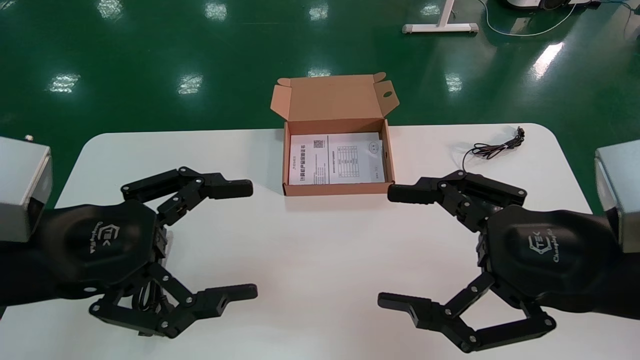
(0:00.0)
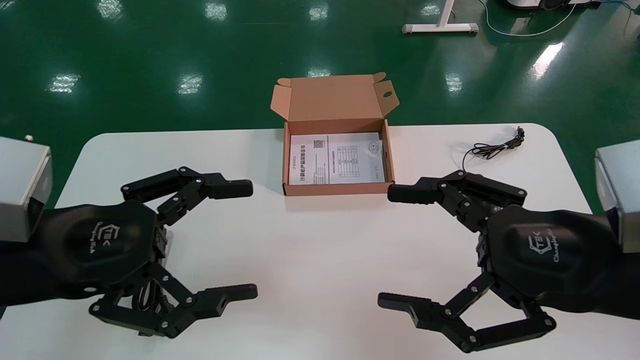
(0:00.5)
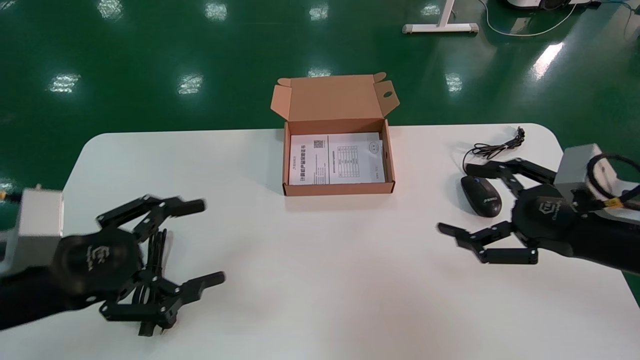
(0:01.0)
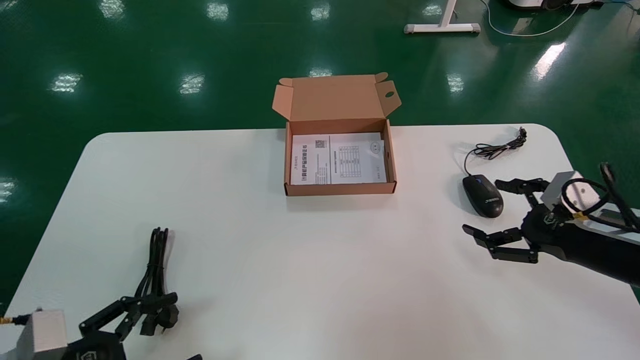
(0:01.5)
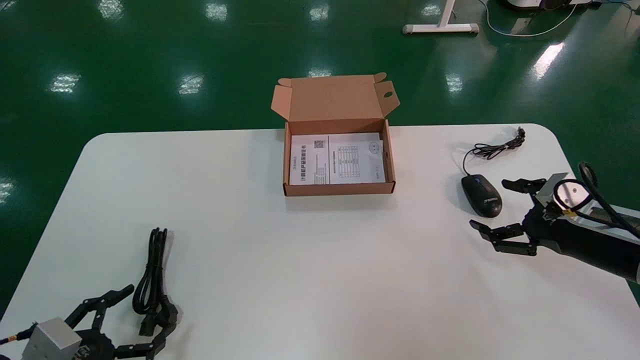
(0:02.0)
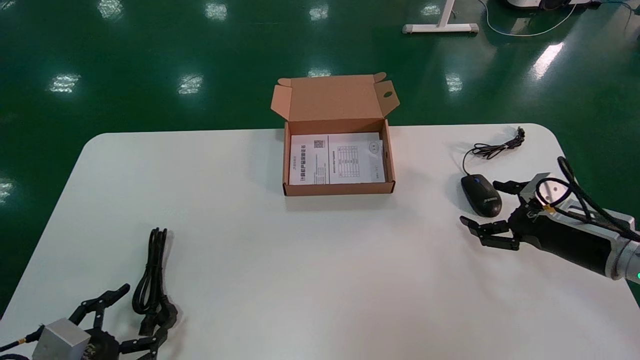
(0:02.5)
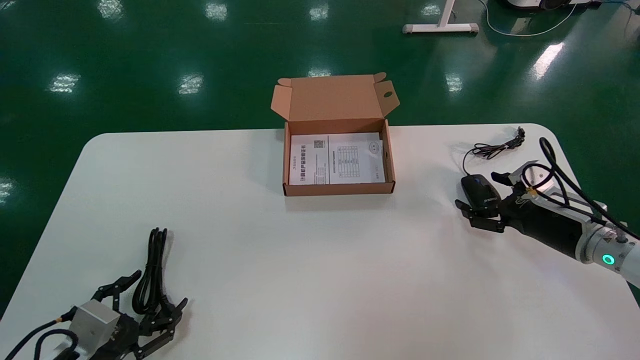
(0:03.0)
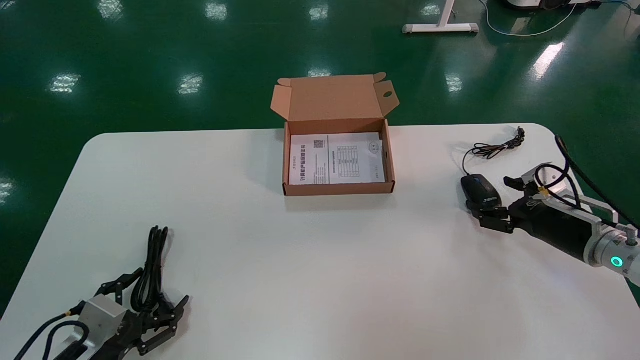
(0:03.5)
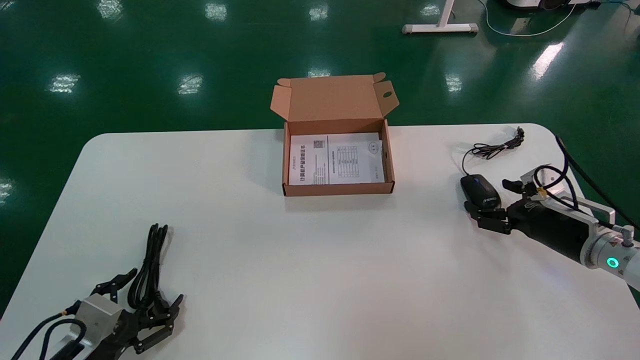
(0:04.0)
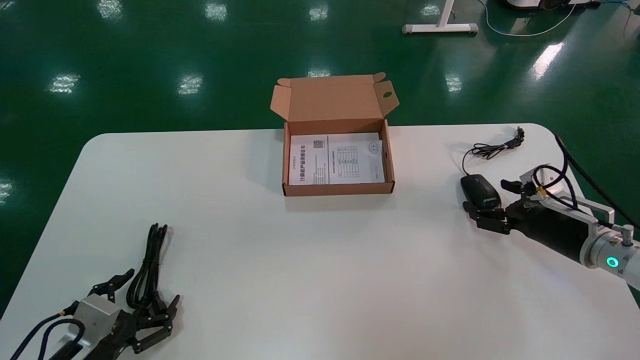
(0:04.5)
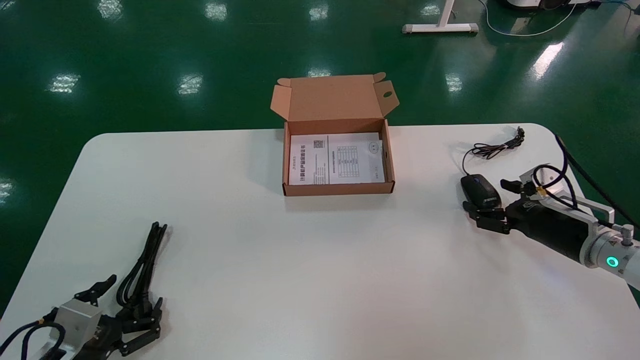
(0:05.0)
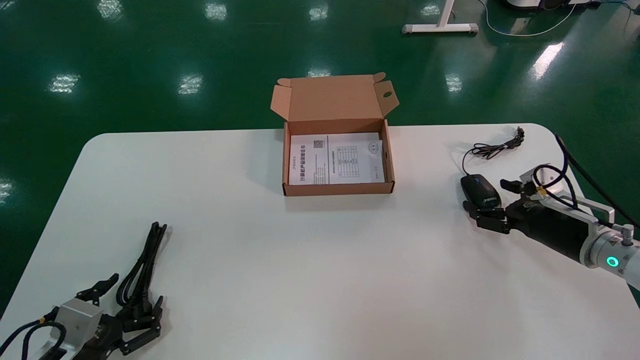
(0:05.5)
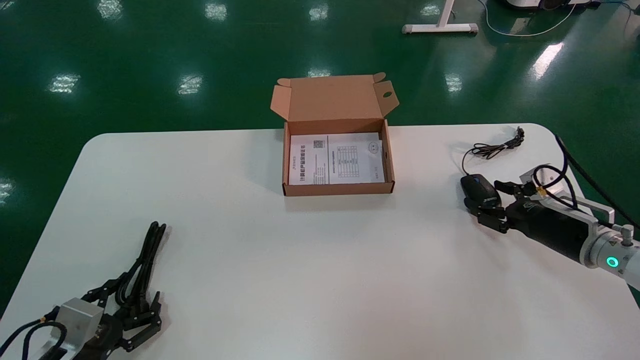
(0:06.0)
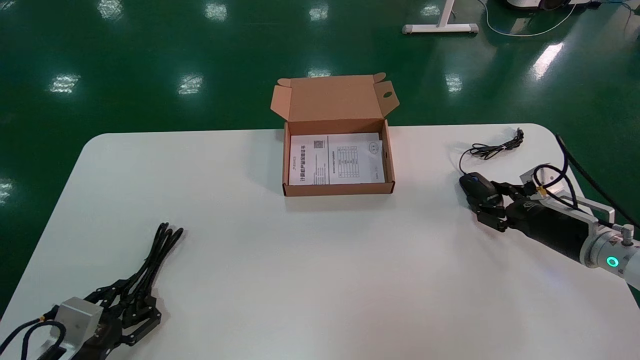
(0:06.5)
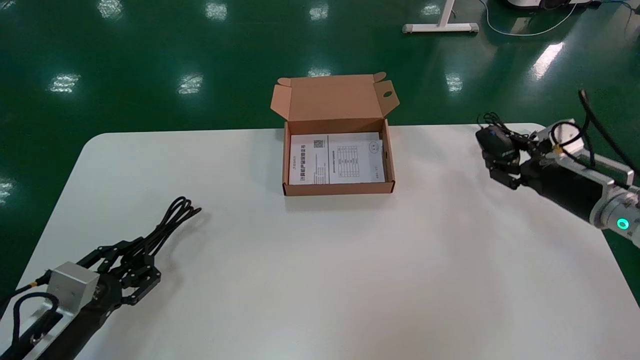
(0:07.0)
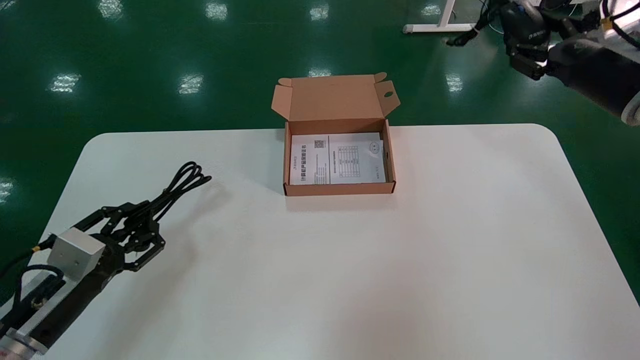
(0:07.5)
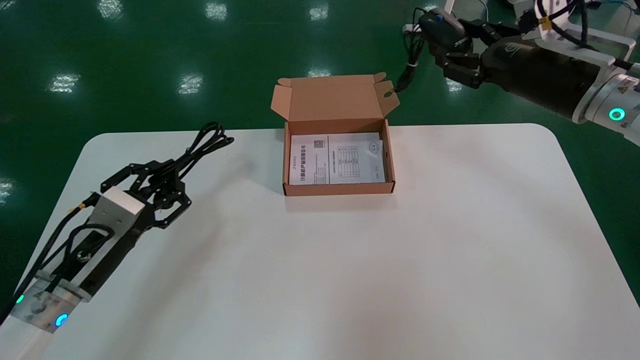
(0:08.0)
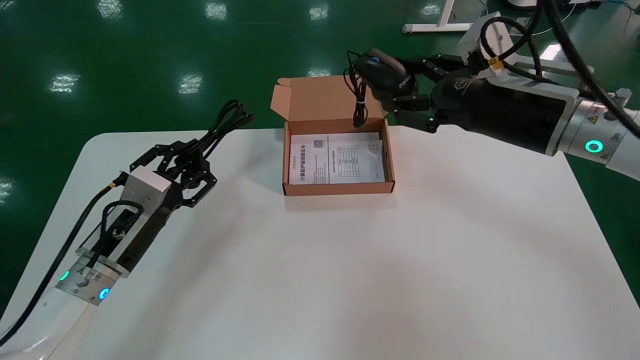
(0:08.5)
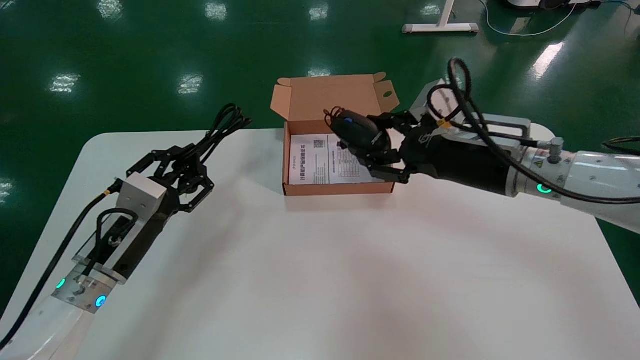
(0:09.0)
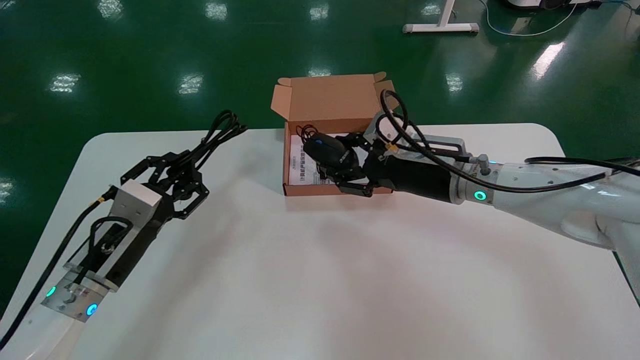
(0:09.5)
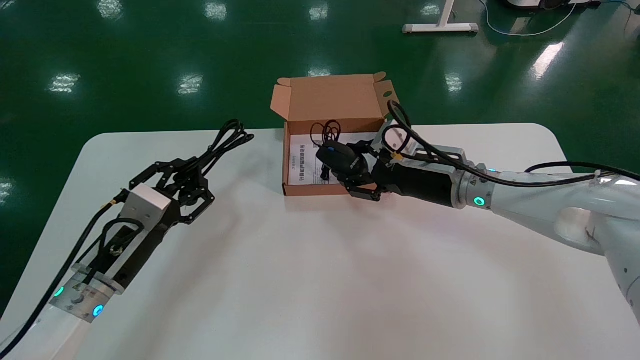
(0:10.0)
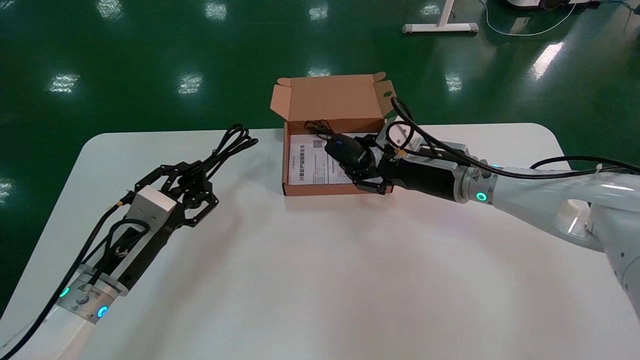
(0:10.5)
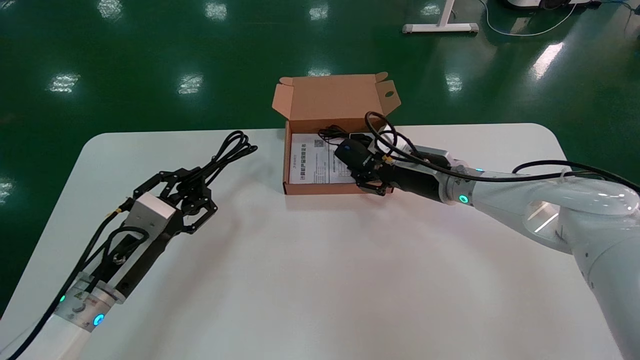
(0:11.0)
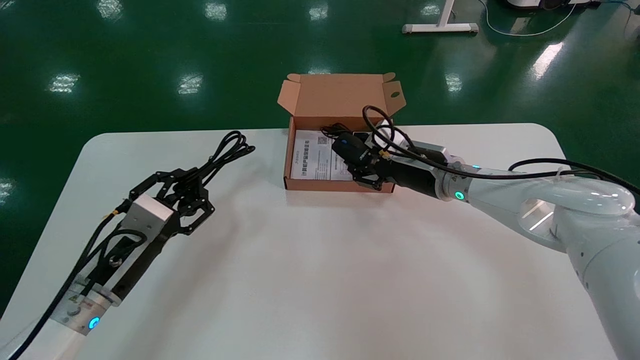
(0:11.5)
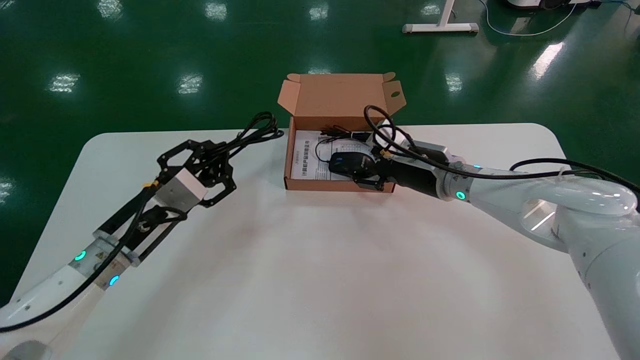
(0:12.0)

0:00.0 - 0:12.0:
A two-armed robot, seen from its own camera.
Step, 0:01.0 - 0:06.5: Grab and pick up the mouse and power cord from the accessory packaging area.
0:00.0 - 0:02.0: The right gripper heads forward, to the right and downward, covering approximately 25 cm. The left gripper goes approximately 25 cm downward and to the left.
0:02.0 - 0:04.0: Both grippers travel together forward, some 5 cm.
0:06.0 - 0:08.0: The left gripper heads upward and forward, covering some 15 cm, and closes, while the right gripper moves upward and to the left, roughly 25 cm, and closes.
0:08.0 - 0:10.0: The right gripper moves downward and to the left, some 15 cm.
0:10.0 - 0:12.0: There are only small adjustments of the grippers.

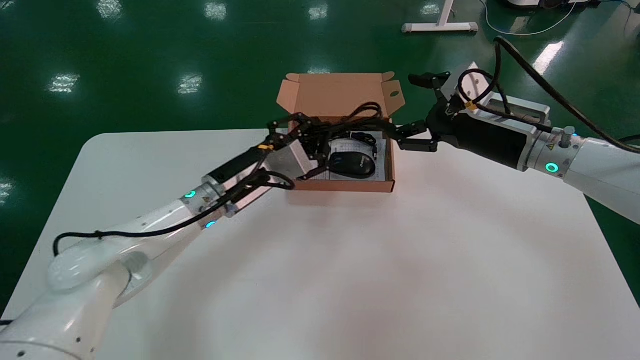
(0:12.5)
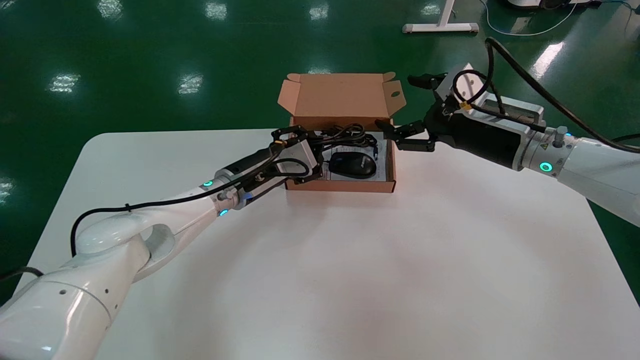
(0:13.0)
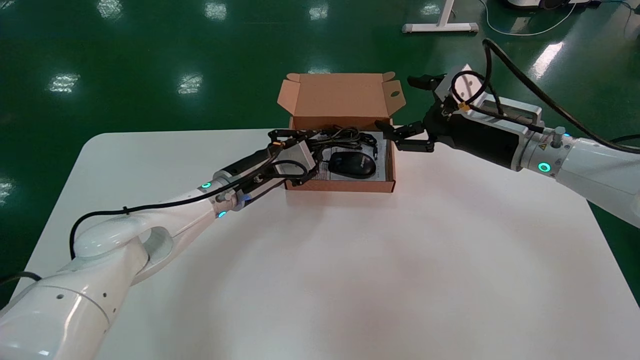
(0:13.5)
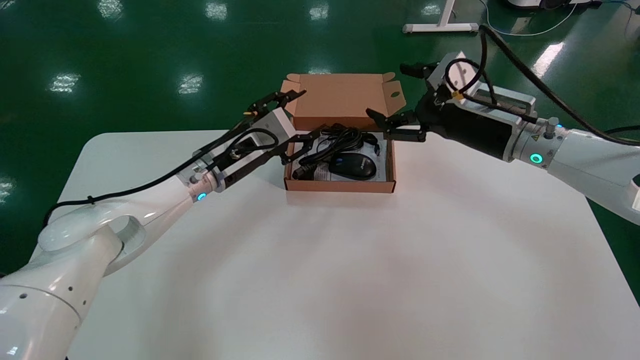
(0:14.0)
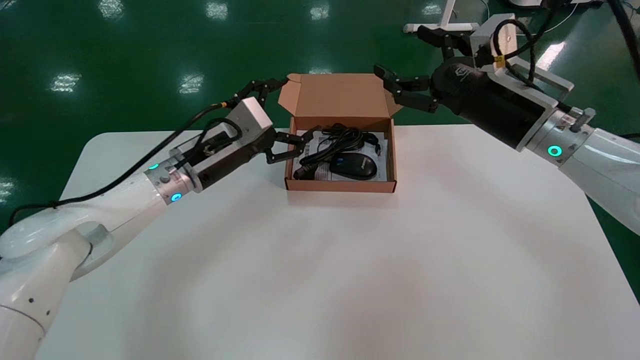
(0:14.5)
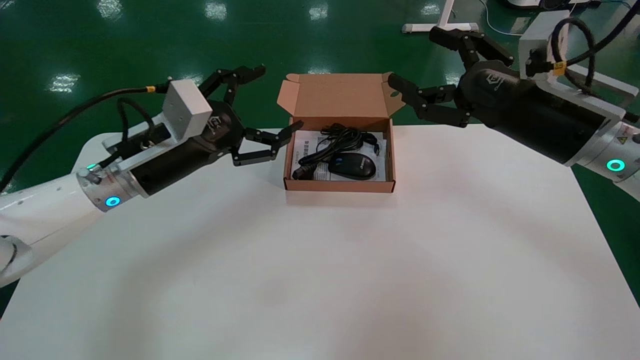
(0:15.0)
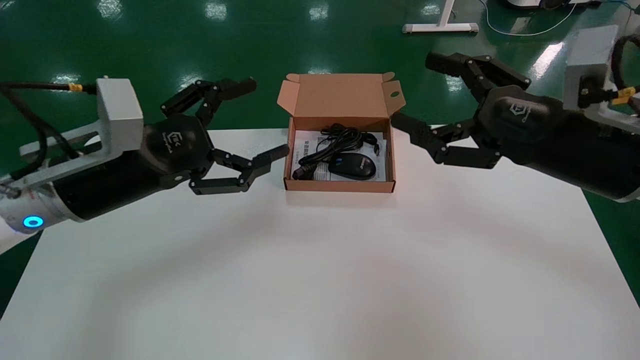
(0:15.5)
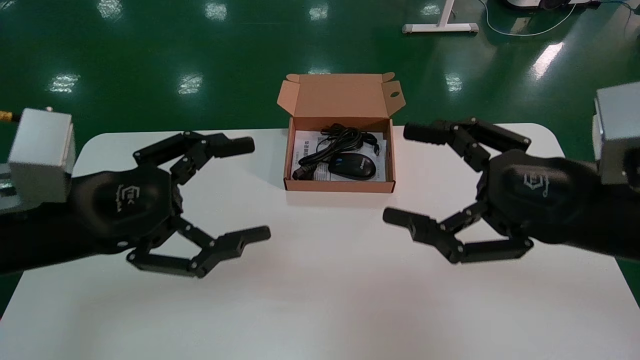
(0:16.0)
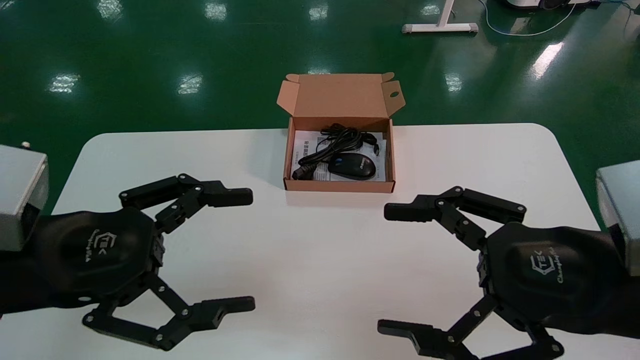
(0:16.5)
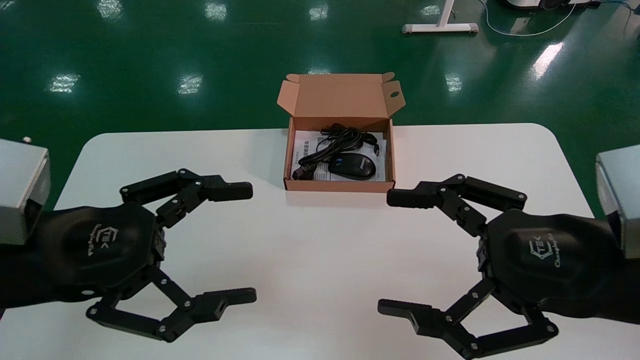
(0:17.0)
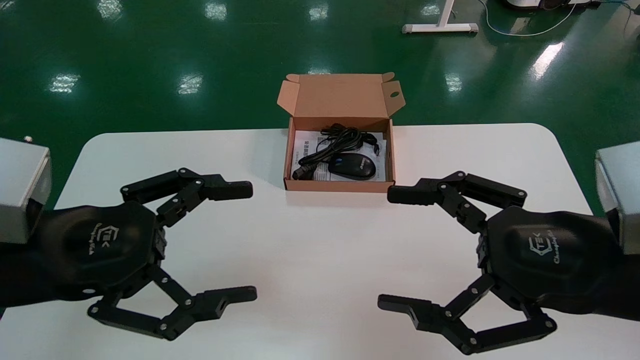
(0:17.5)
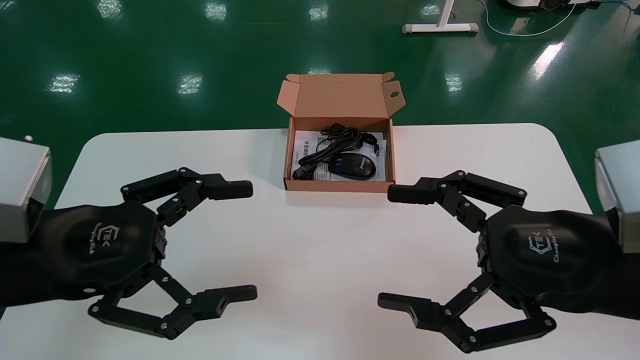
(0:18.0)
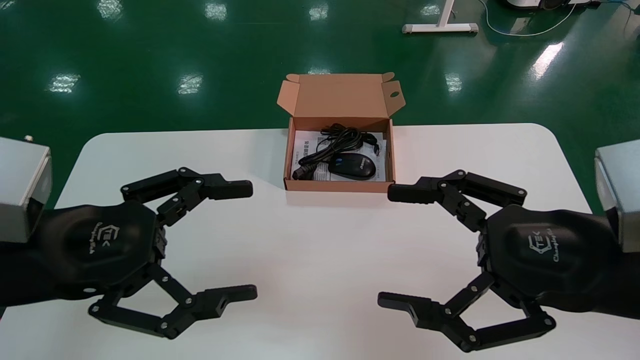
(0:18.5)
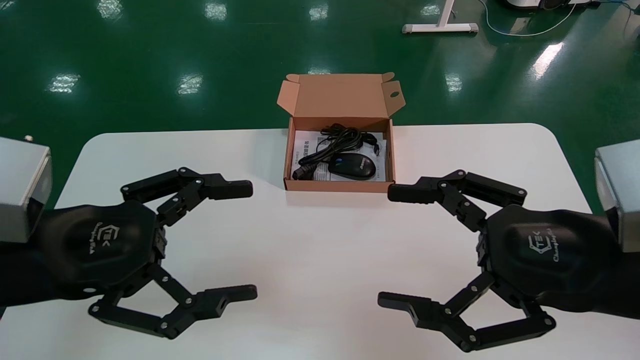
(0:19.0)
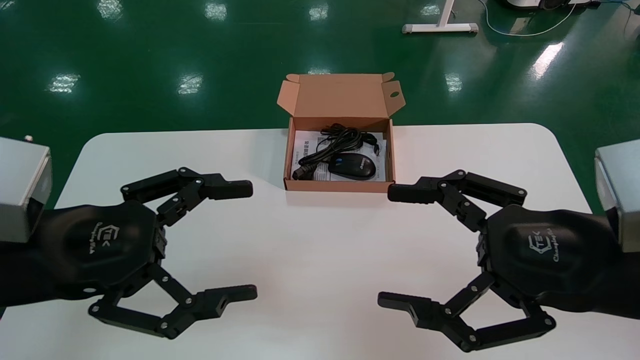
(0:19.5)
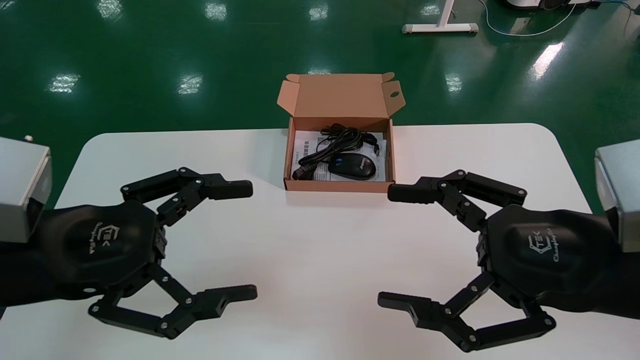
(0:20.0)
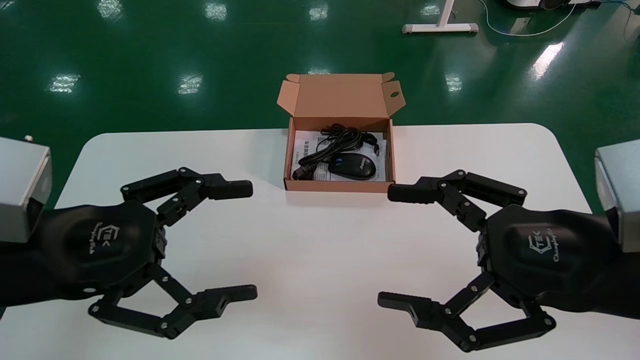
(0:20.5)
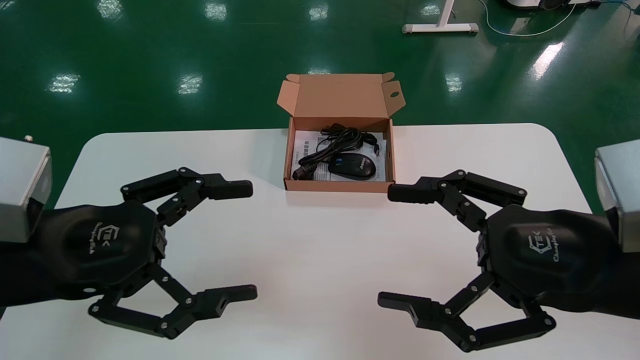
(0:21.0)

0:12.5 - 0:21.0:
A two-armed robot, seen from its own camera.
0:12.5 - 0:14.5: The left gripper shifts by about 5 cm, and opens up.
0:14.5 - 0:16.5: The grippers both shift backward by roughly 25 cm.
0:16.5 - 0:21.0: Both grippers stay about where they are.
